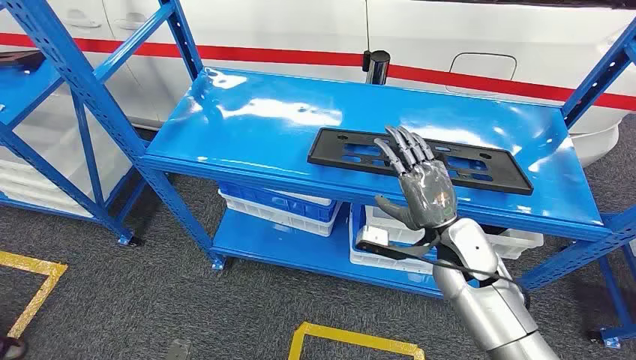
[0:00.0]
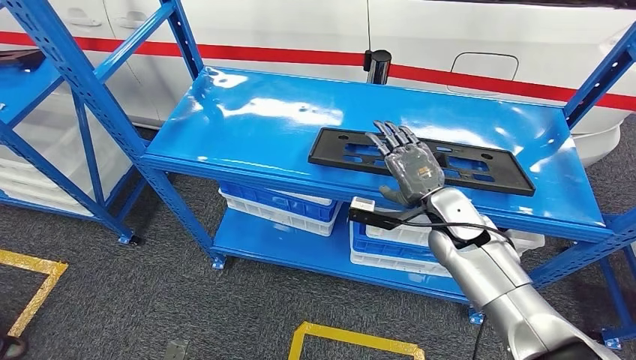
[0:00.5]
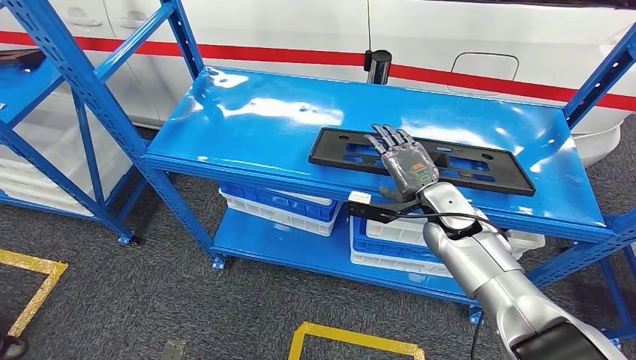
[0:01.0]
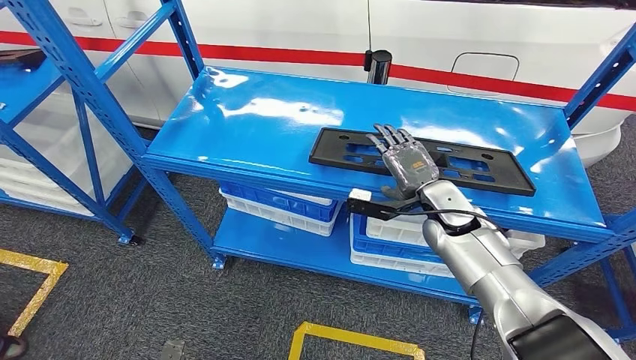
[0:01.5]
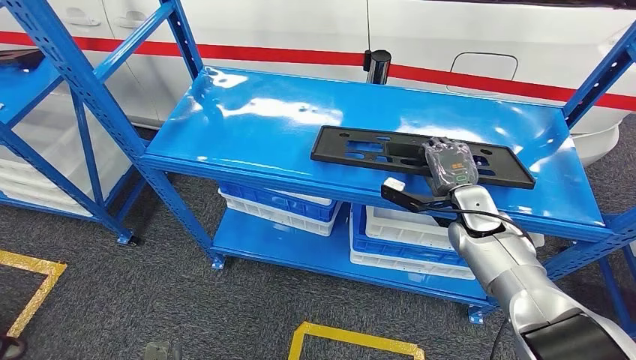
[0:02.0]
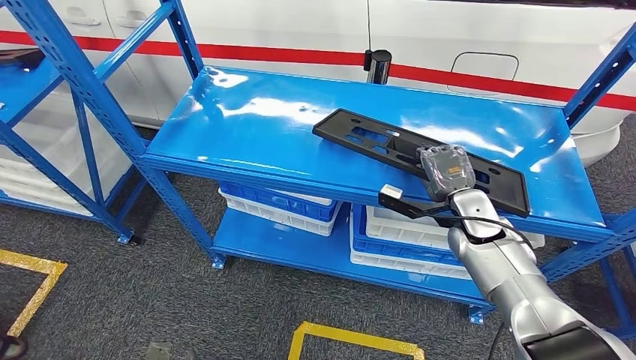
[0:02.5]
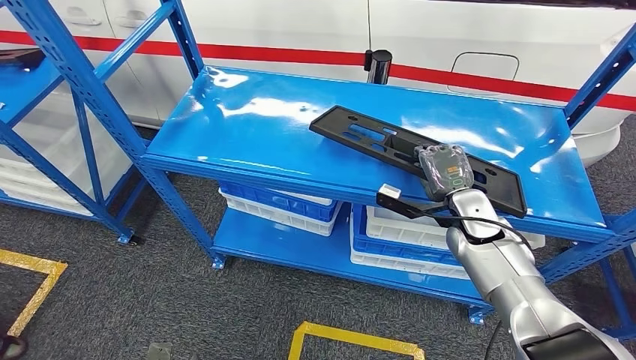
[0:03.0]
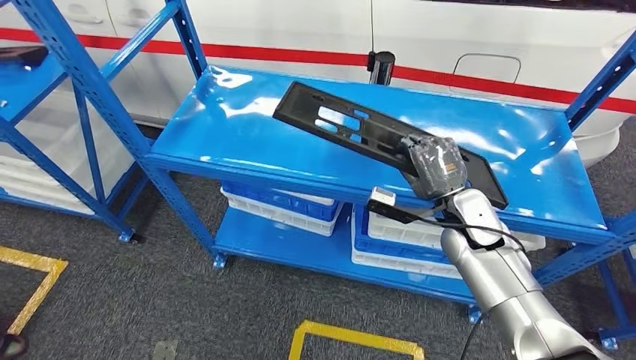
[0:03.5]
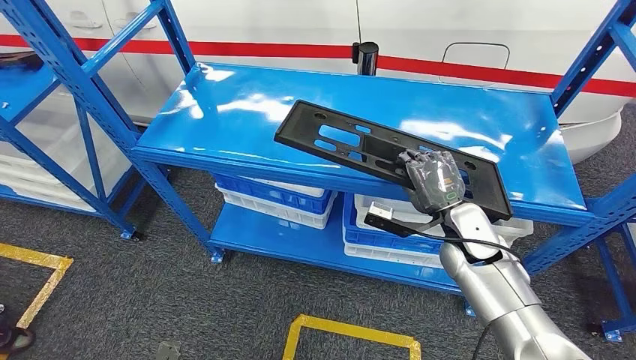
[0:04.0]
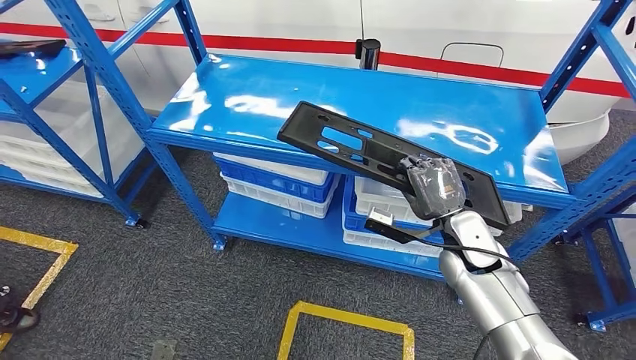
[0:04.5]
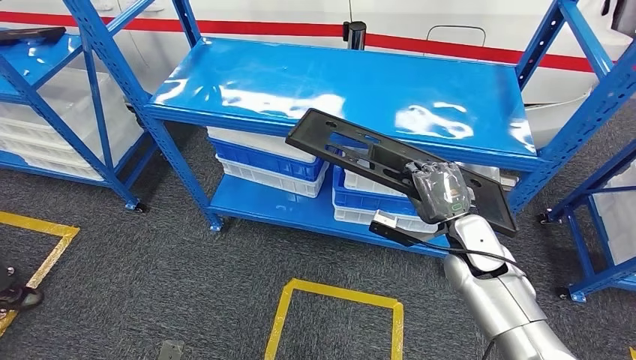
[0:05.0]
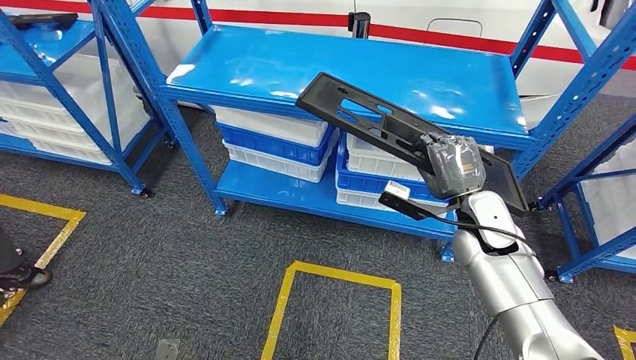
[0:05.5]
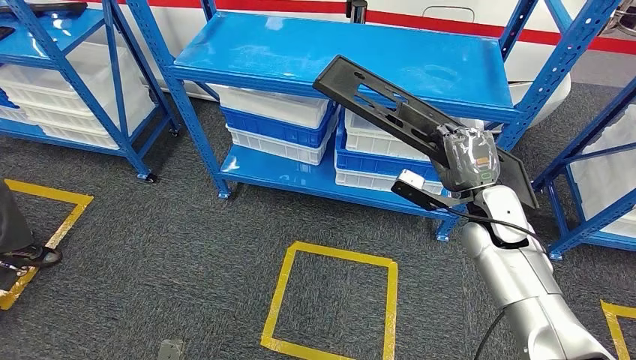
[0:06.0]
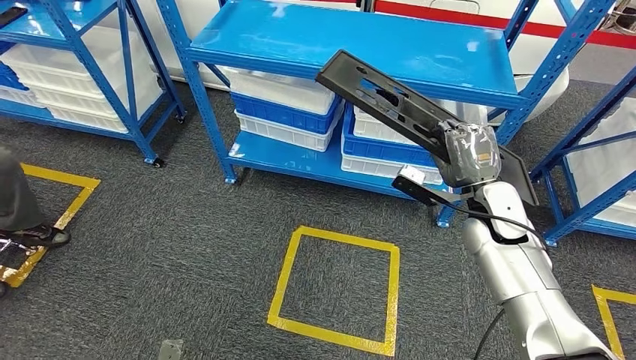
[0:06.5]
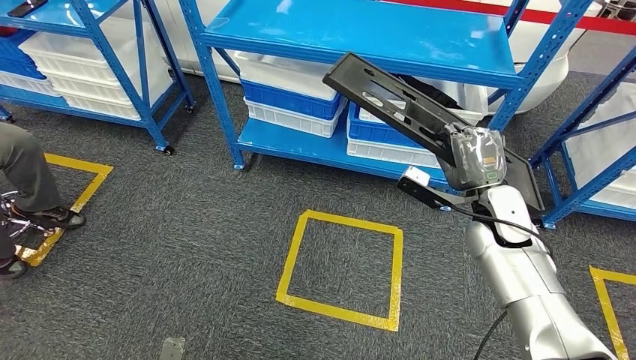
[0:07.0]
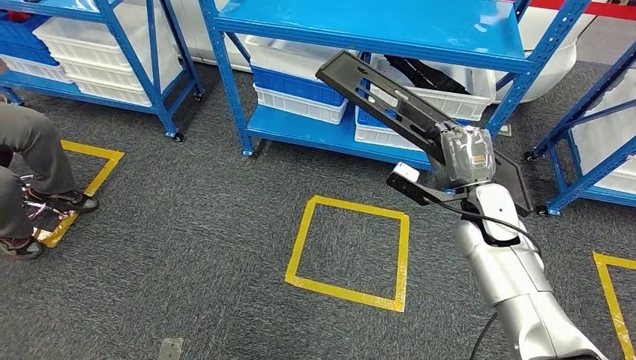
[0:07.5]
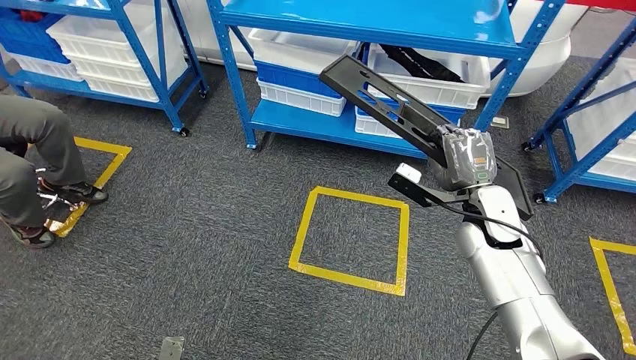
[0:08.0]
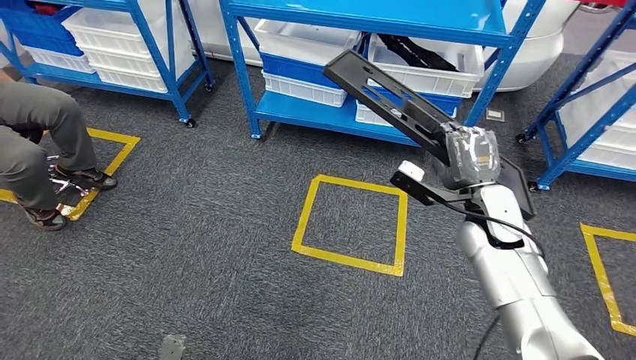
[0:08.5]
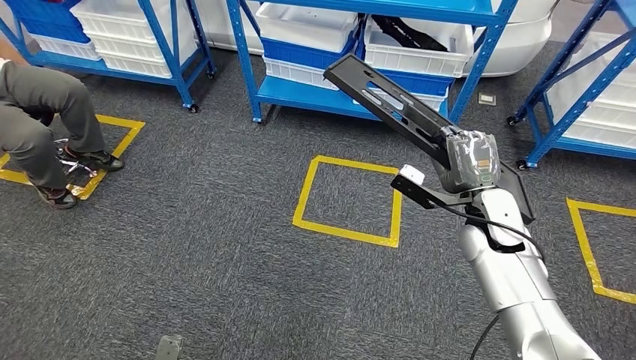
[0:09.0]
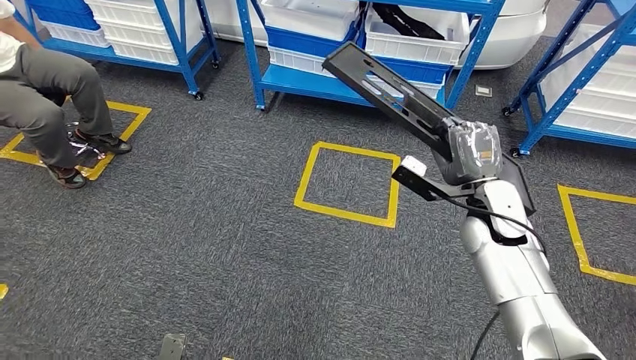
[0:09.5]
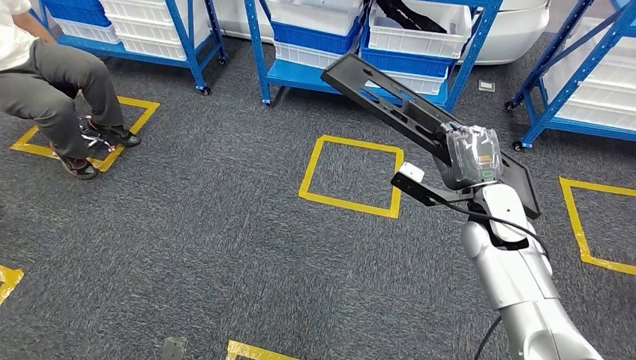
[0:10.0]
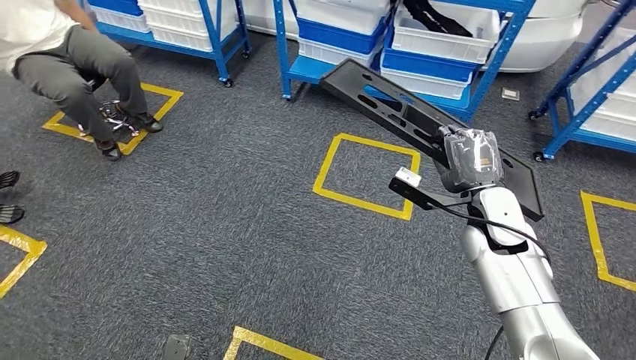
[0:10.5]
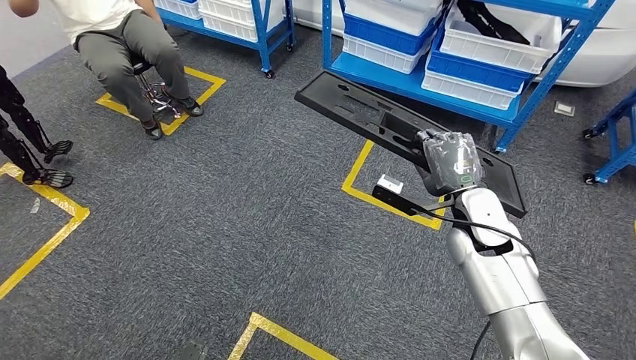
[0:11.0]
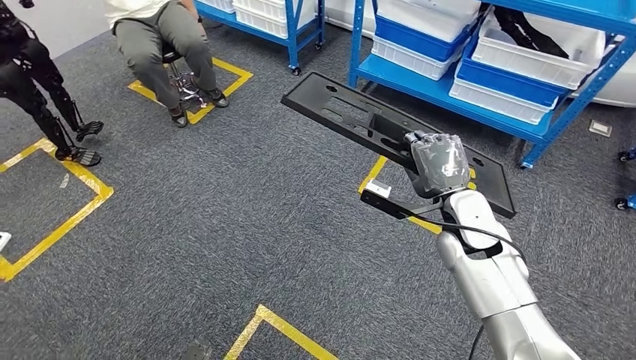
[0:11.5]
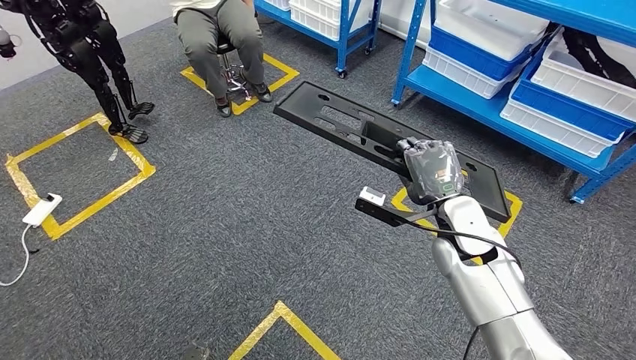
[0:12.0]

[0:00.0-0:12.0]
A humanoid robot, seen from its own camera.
Step, 0:00.0 to 0:08.0: Pick up the large material from the shelf.

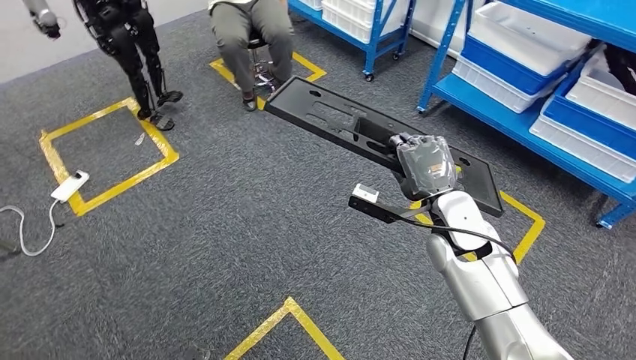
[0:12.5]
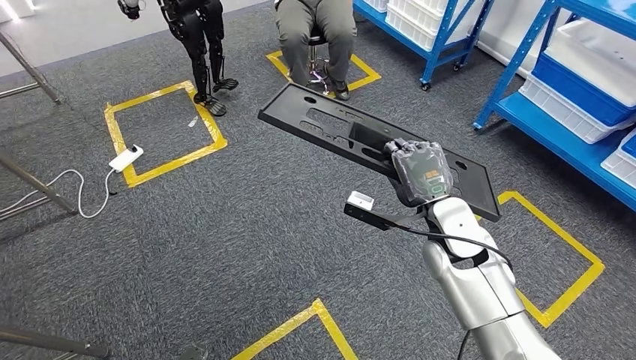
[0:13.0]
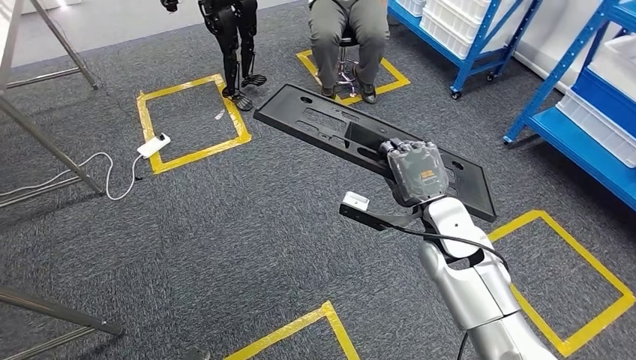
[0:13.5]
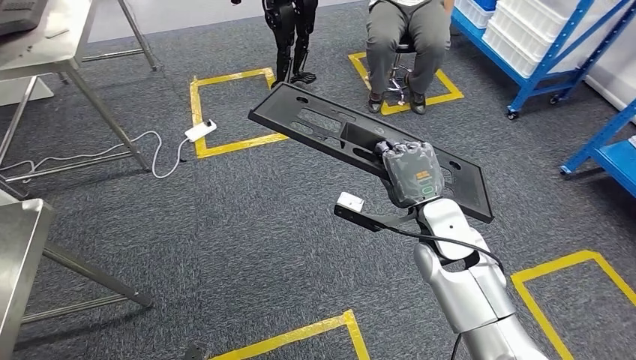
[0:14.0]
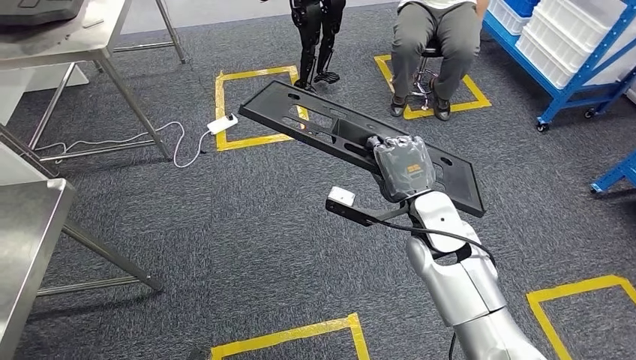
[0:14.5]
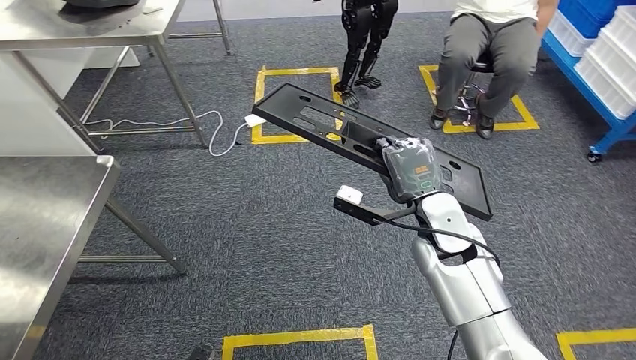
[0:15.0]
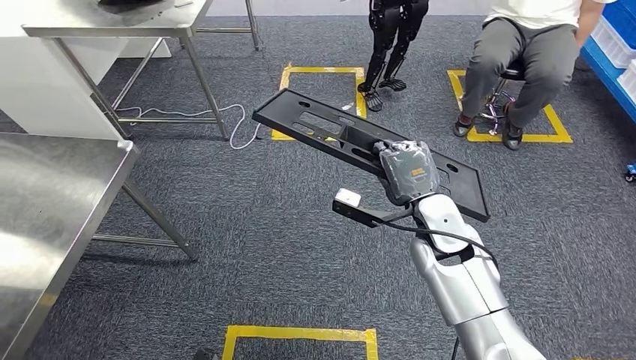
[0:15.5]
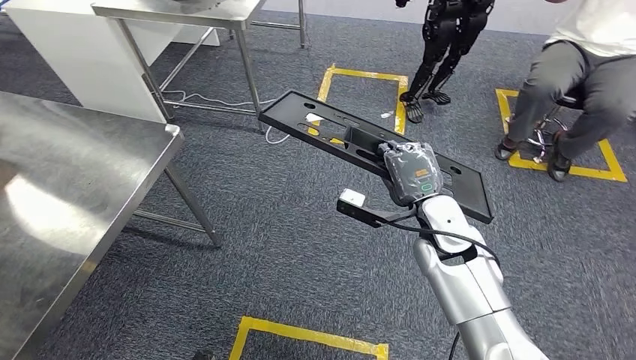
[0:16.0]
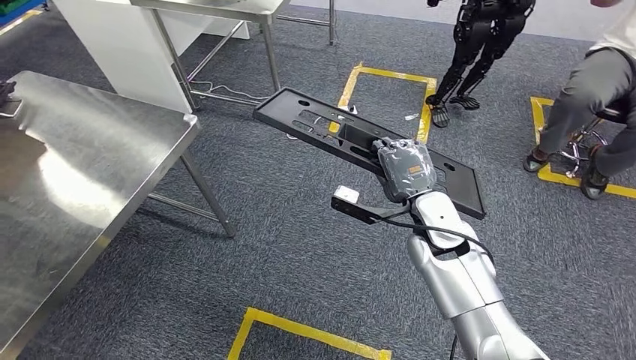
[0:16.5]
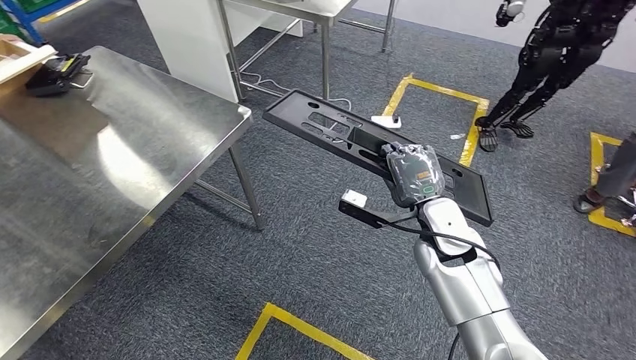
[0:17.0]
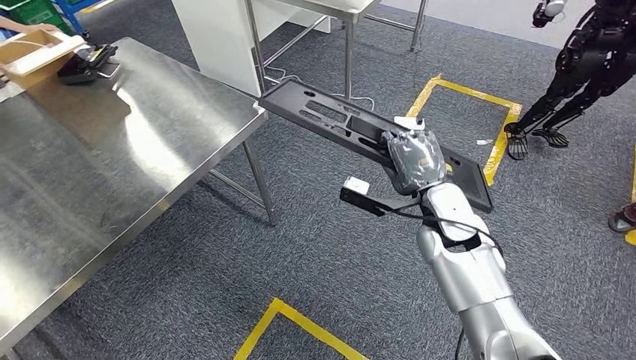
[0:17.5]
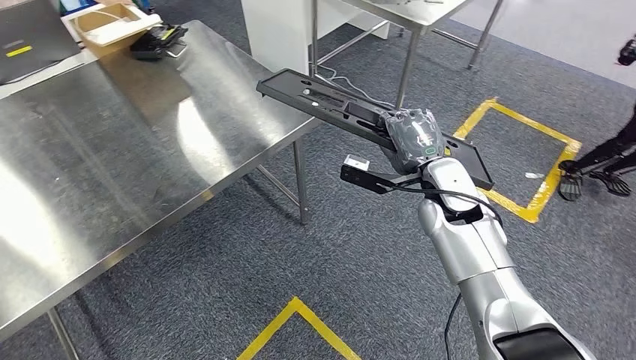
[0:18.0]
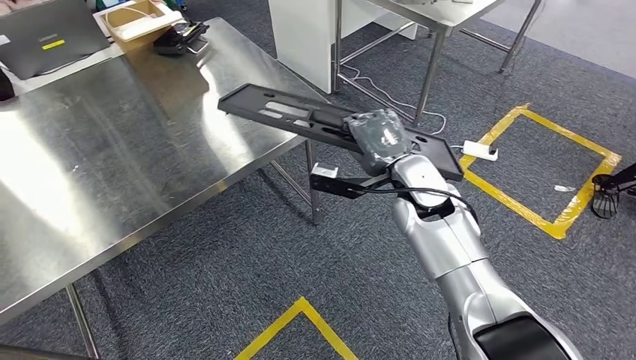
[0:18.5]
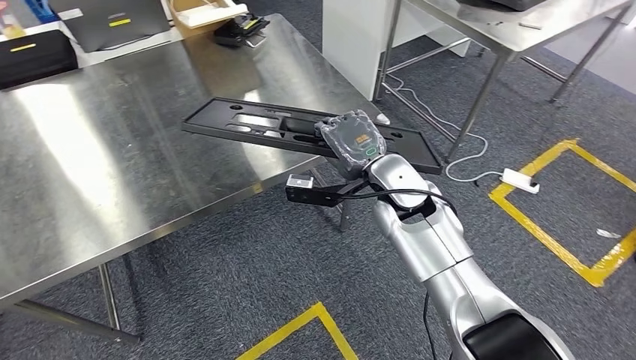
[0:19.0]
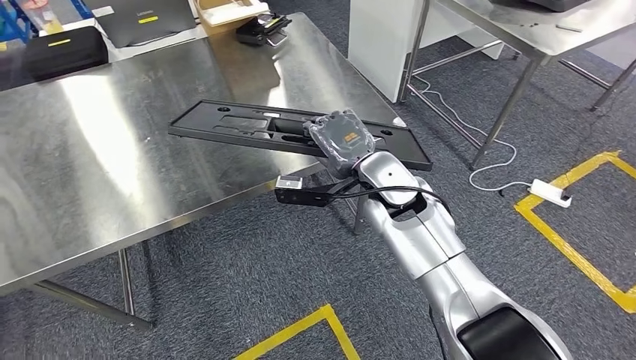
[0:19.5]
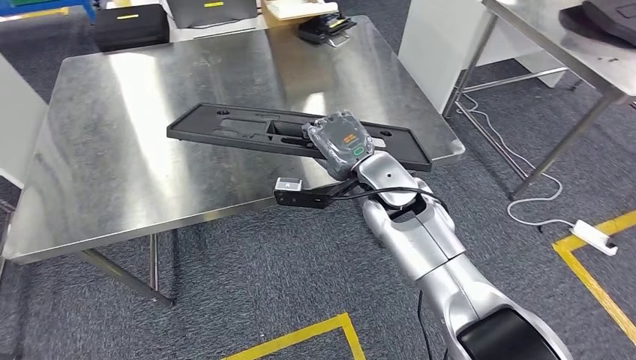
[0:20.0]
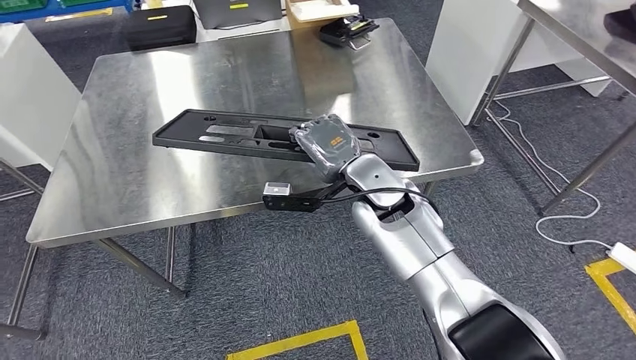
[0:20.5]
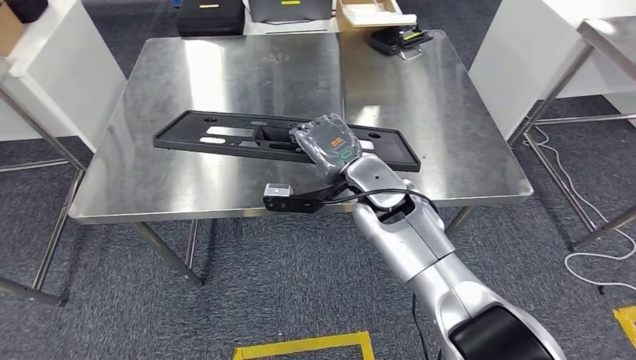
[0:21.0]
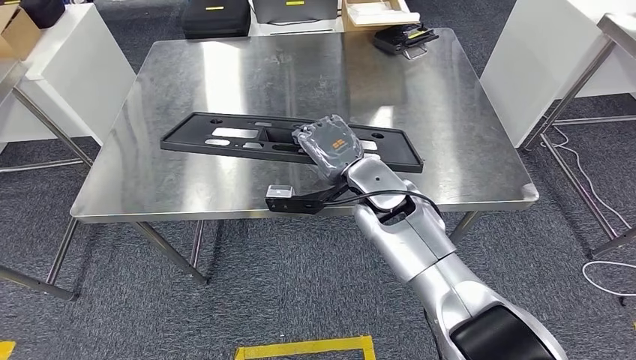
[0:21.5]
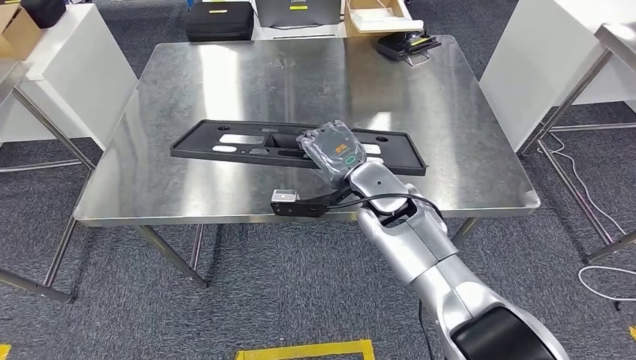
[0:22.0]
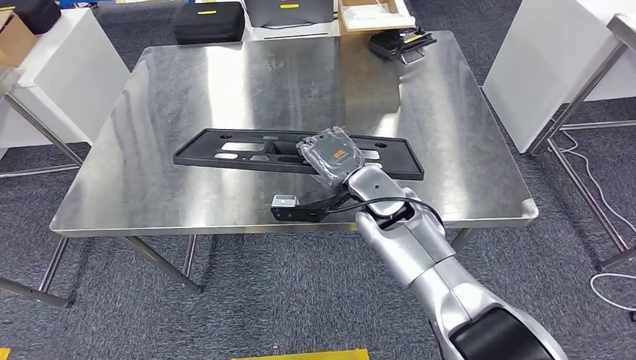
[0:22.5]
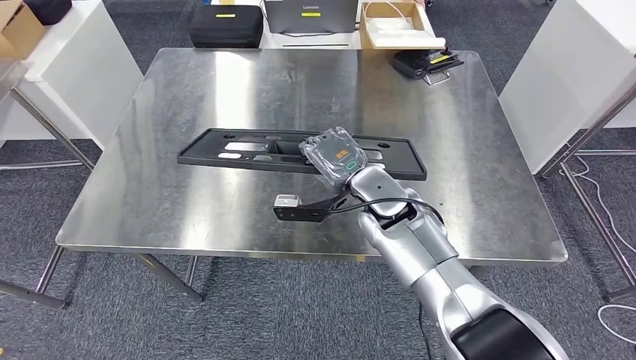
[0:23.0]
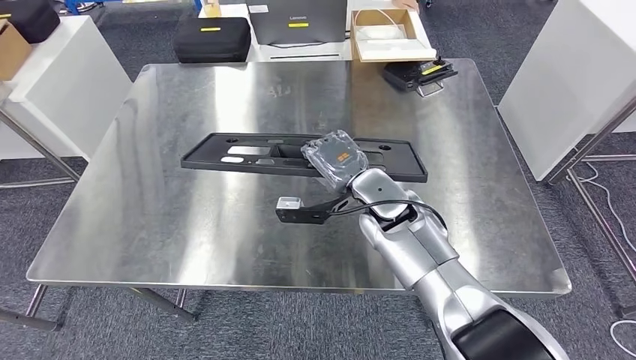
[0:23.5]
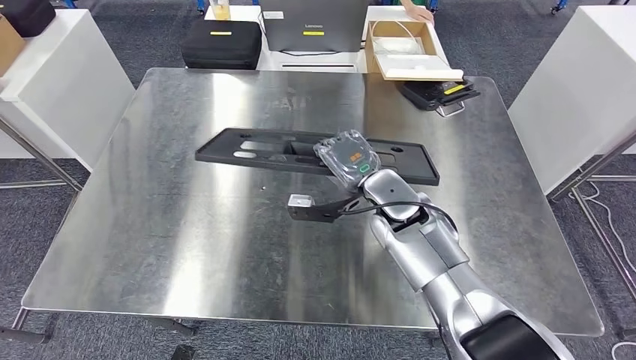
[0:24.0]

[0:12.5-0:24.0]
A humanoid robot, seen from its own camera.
Step, 0:12.5 to 0:21.5: Move the large material to the workbench.
